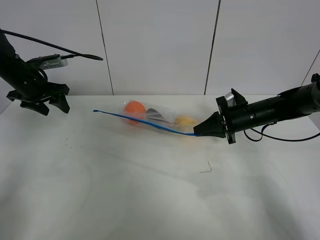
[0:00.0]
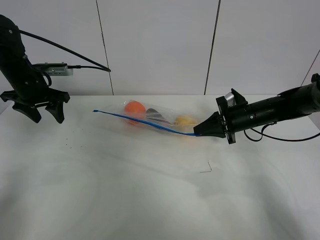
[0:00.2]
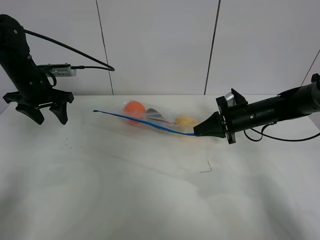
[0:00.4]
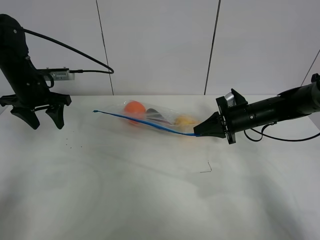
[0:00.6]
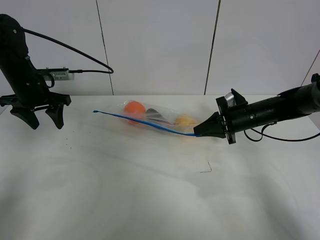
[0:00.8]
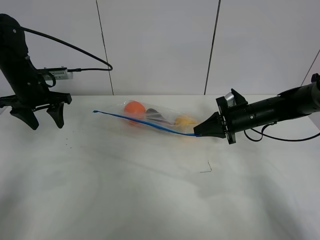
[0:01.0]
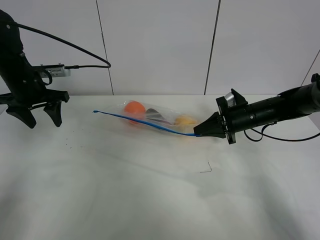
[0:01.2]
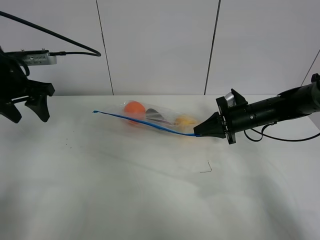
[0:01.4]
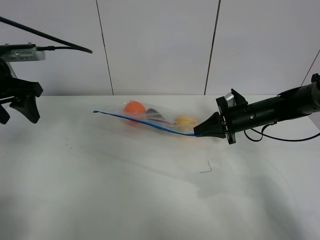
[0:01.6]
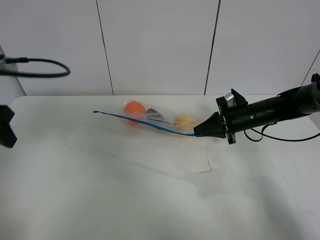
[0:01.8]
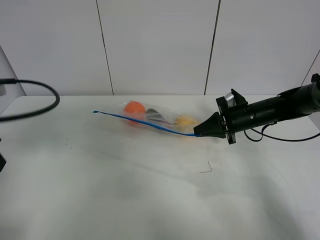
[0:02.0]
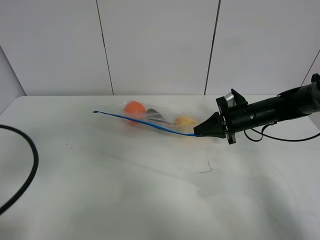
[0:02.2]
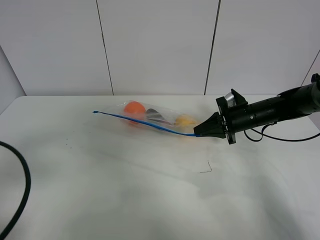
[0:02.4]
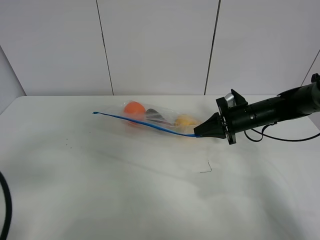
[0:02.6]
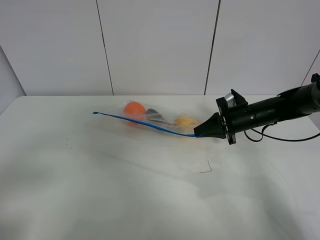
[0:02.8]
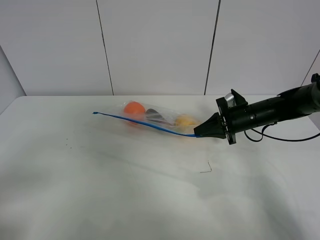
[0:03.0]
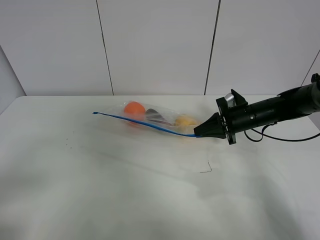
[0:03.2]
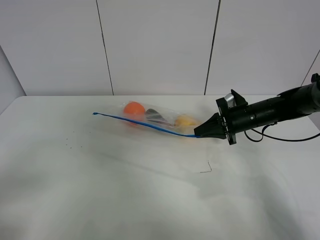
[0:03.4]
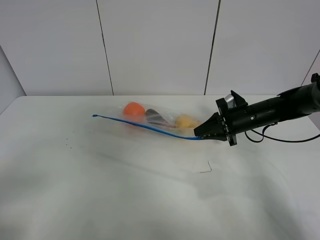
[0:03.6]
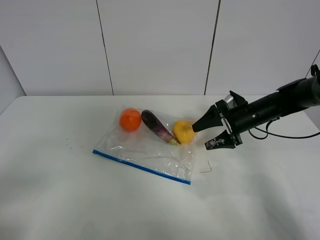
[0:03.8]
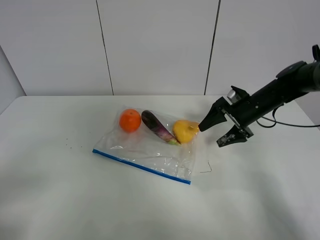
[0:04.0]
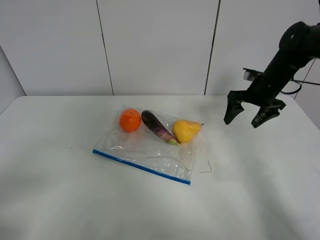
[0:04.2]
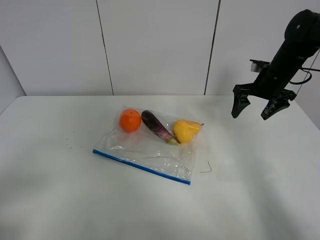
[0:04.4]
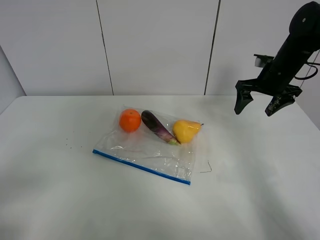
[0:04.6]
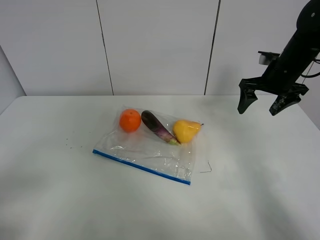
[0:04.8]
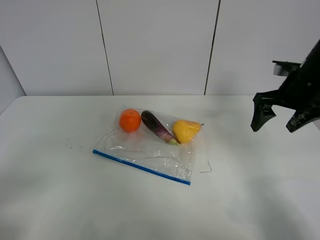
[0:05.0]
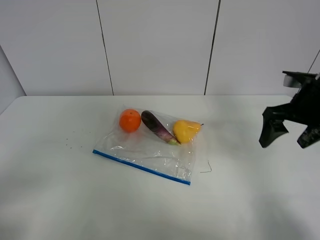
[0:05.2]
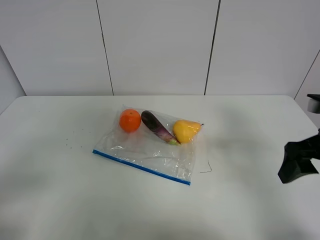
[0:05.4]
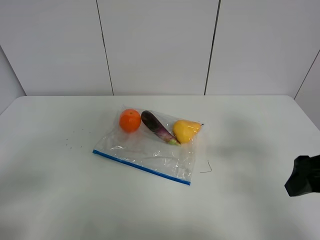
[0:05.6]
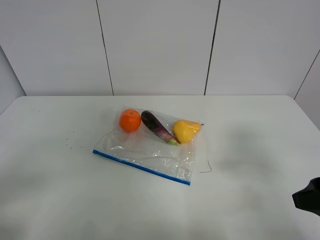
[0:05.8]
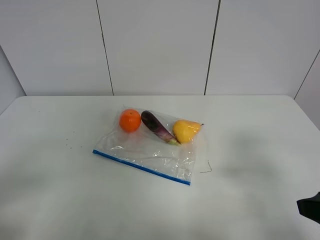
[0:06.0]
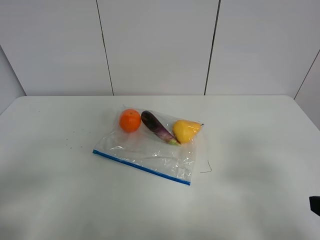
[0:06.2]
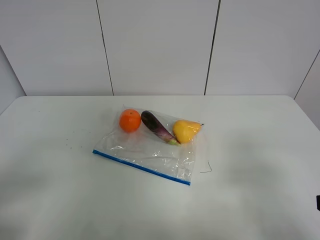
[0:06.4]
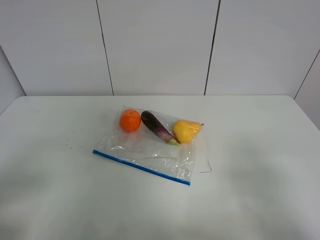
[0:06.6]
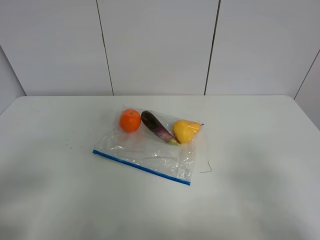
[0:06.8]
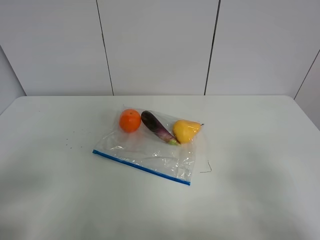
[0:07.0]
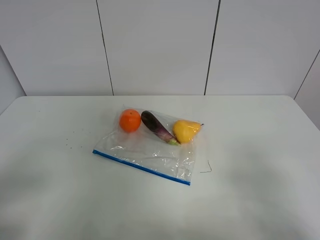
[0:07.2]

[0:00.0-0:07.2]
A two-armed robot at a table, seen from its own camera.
0:00.0 to 0:01.4: The left gripper goes approximately 10 cm backward and upward.
0:01.4 to 0:02.8: The left gripper travels backward by roughly 30 cm.
0:02.8 to 0:04.4: The right gripper heads upward, covering some 10 cm, and opens its fingers.
0:04.4 to 0:05.8: The right gripper goes some 30 cm backward.
0:05.8 to 0:07.2: The right gripper goes roughly 10 cm backward.
